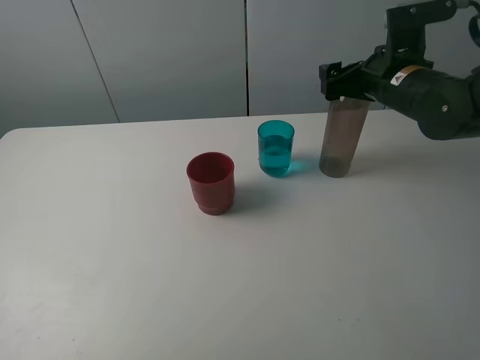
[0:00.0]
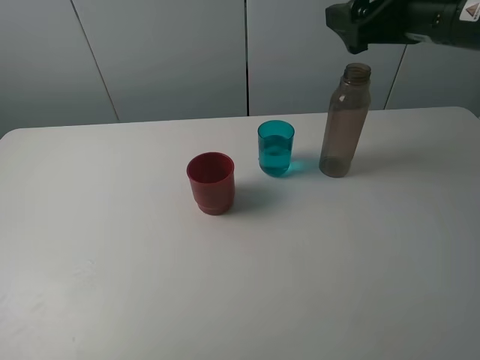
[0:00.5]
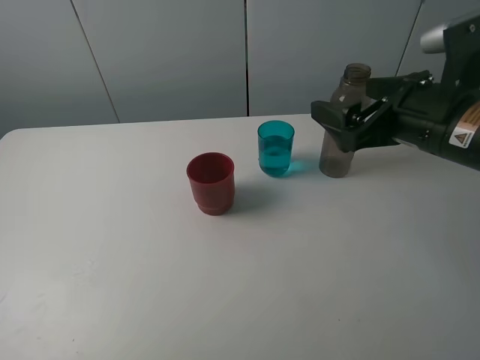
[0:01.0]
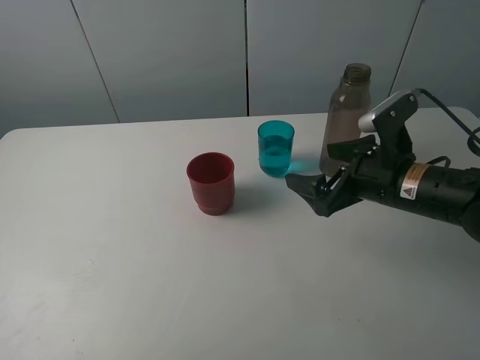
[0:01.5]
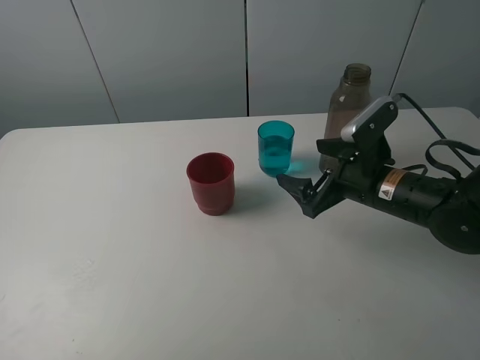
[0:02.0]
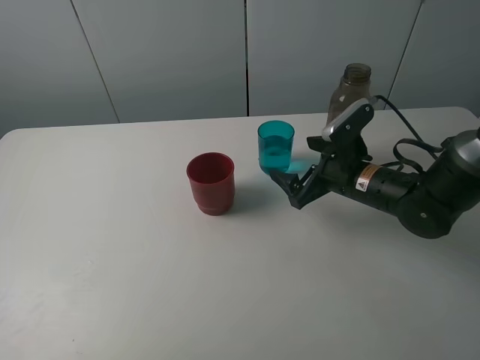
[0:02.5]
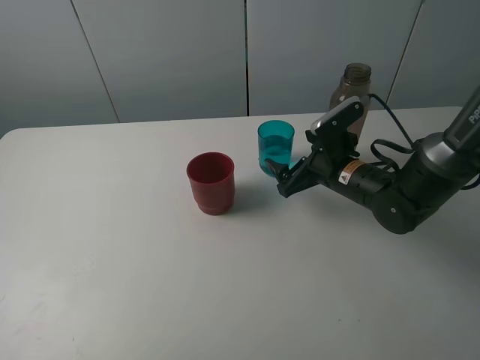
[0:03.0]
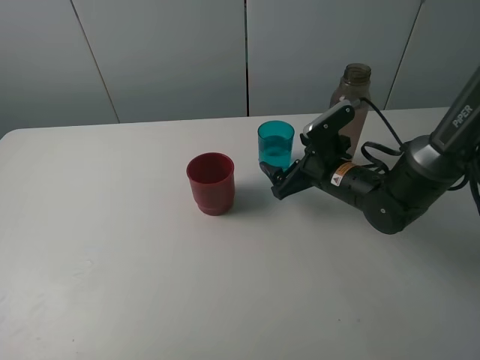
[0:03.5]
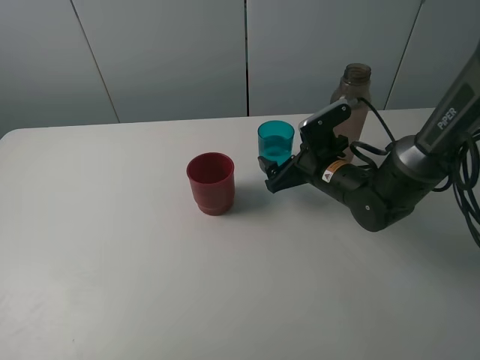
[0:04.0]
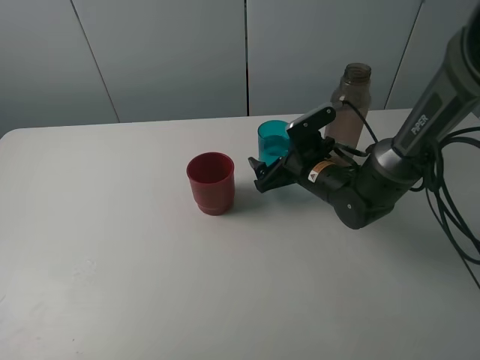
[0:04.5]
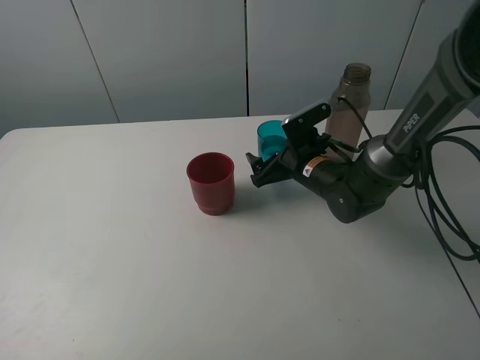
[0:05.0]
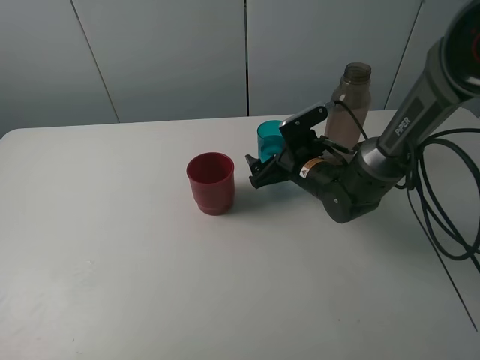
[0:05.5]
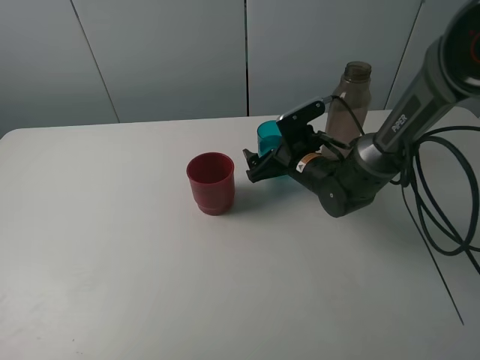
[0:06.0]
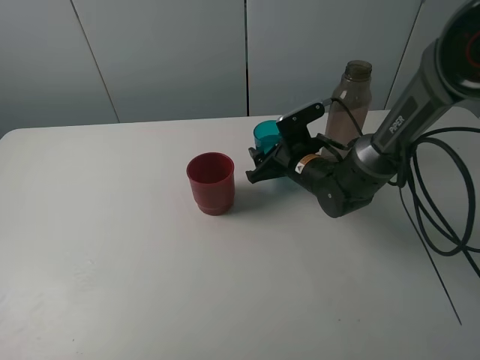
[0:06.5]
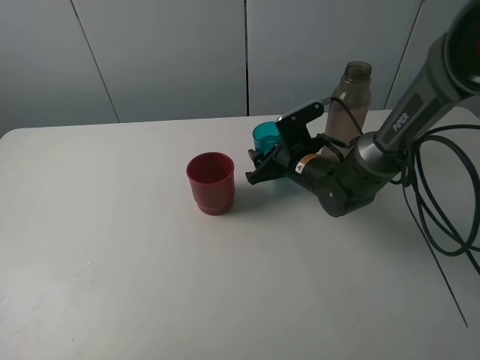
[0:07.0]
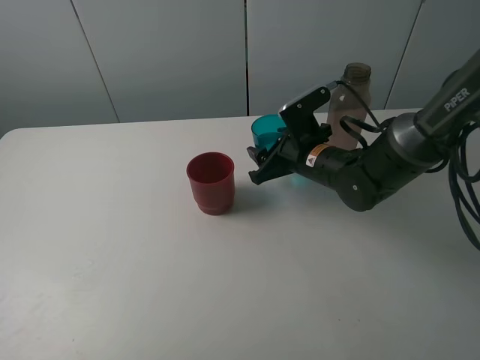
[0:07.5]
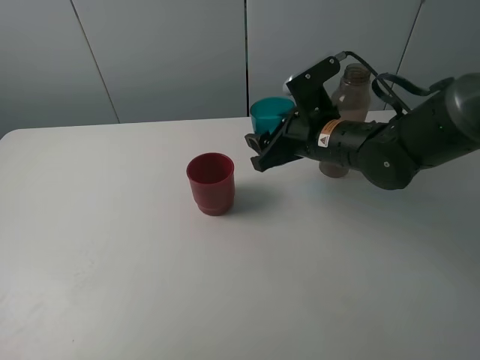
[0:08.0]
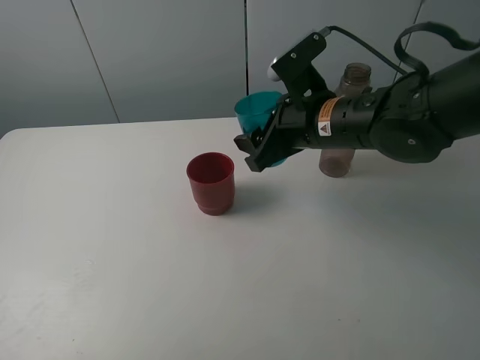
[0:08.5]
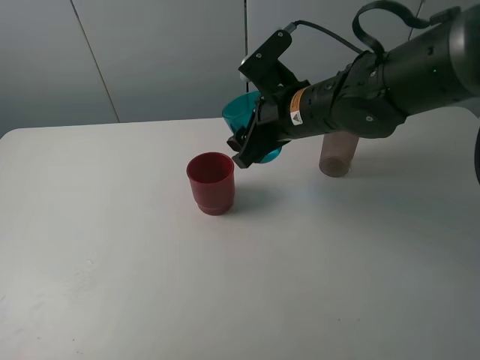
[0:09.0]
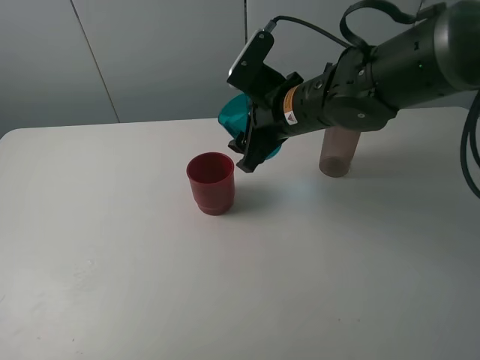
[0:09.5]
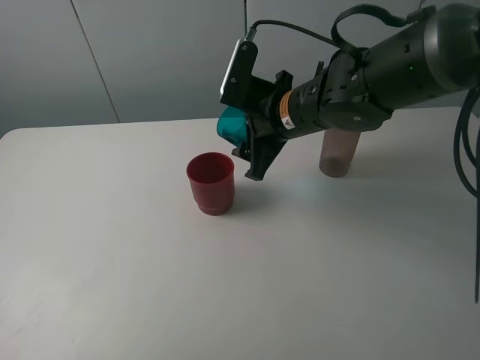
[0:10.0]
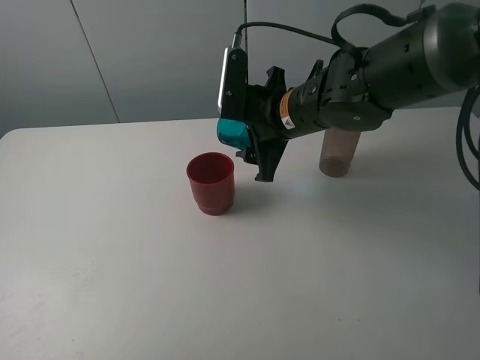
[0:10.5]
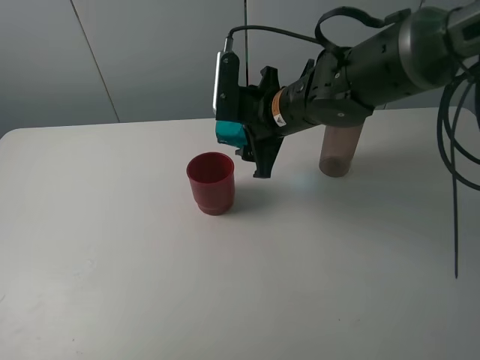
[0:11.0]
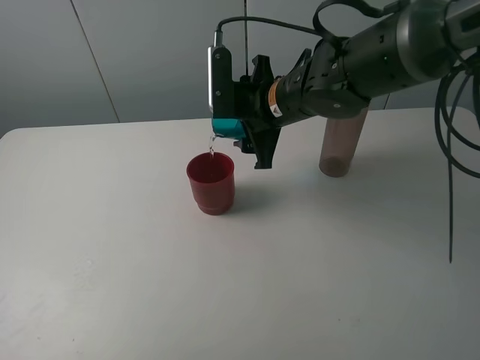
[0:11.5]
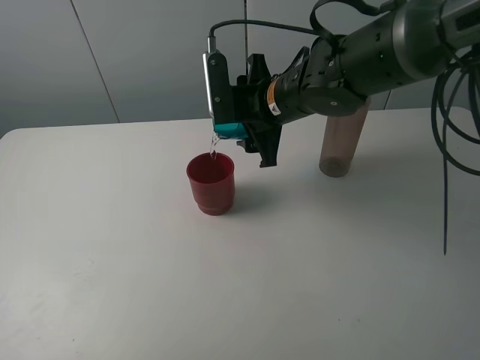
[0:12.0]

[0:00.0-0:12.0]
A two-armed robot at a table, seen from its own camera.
Task of the whole recording: pick up the bottle and pour water into the cup, then pick up the cup containing water and pour it into another cup.
Step, 0:00.0 to 0:06.5: Grasp the blue cup with the right gripper.
0:00.0 to 0:02.0: The right gripper travels downward and backward by roughly 15 cm.
0:02.0 to 0:04.0: The right gripper goes approximately 5 cm forward.
0:04.0 to 0:06.0: The grippers move only a little.
0:06.0 to 0:08.0: The right gripper is displaced upward and backward by about 10 cm, and closes.
0:08.0 to 0:10.0: The right gripper moves some 5 cm.

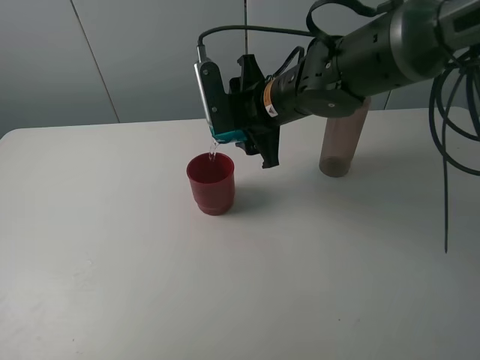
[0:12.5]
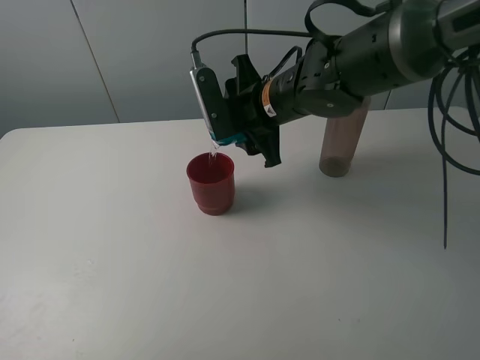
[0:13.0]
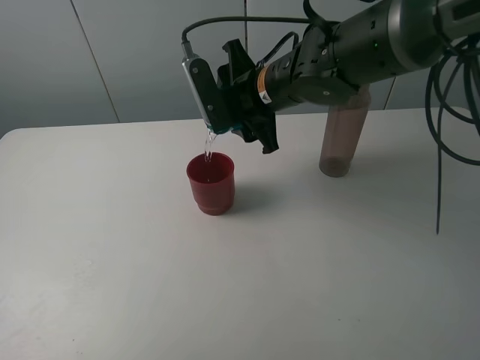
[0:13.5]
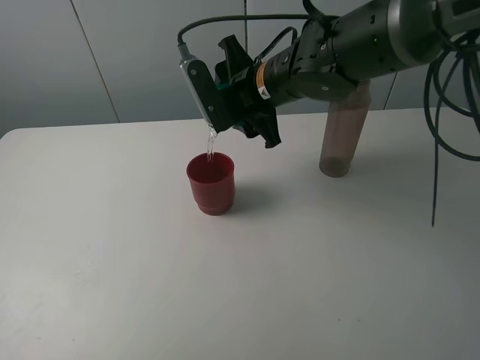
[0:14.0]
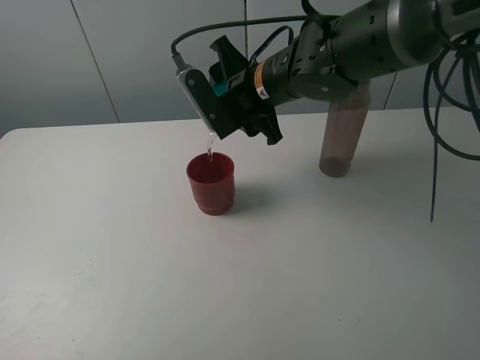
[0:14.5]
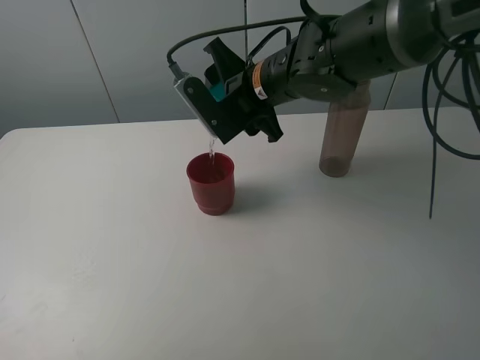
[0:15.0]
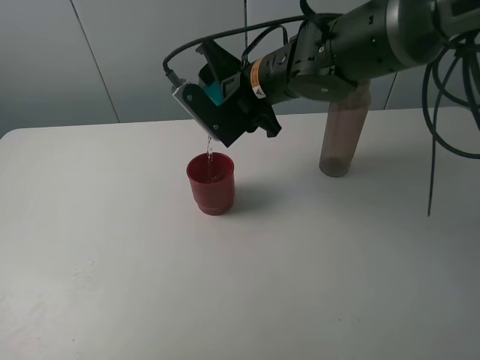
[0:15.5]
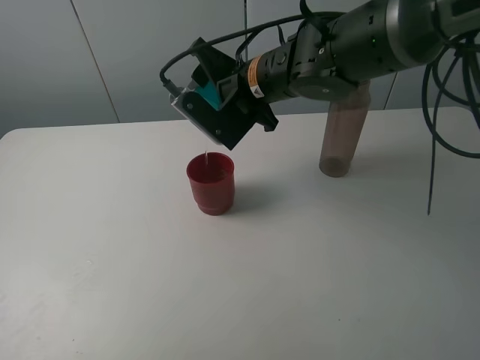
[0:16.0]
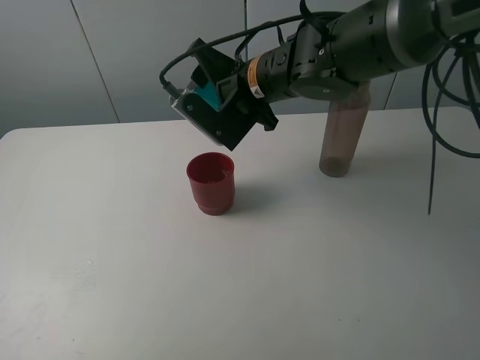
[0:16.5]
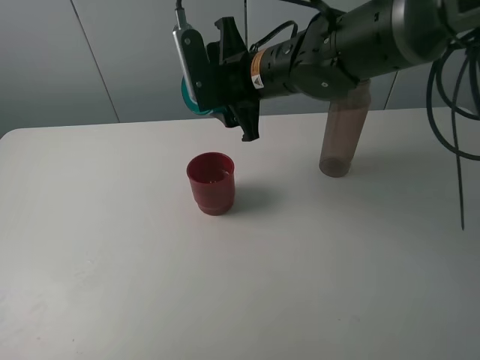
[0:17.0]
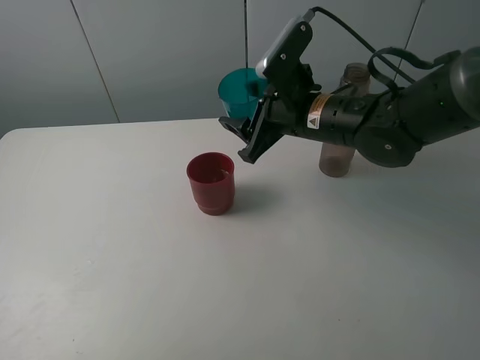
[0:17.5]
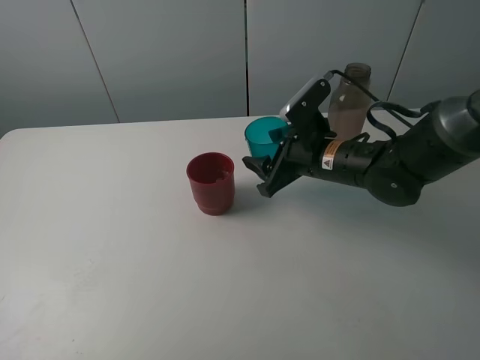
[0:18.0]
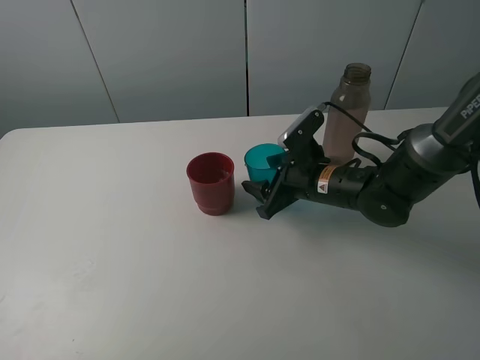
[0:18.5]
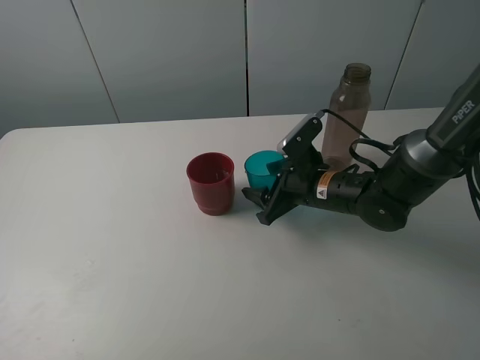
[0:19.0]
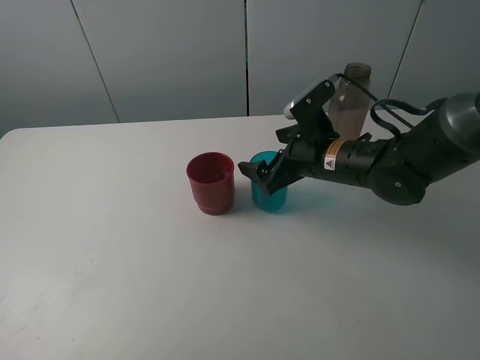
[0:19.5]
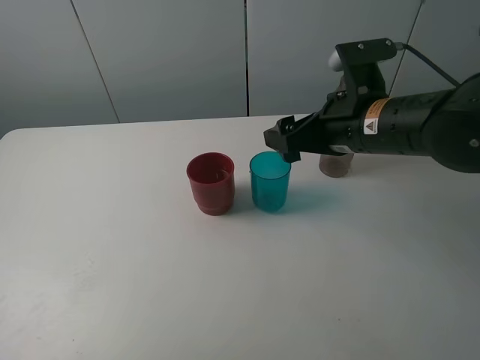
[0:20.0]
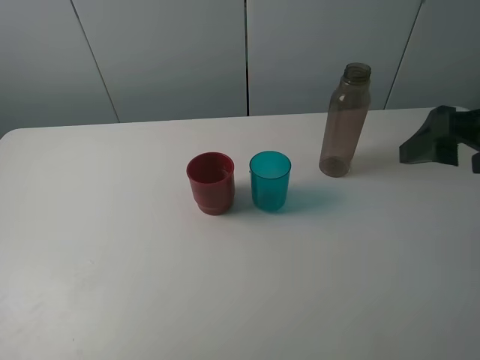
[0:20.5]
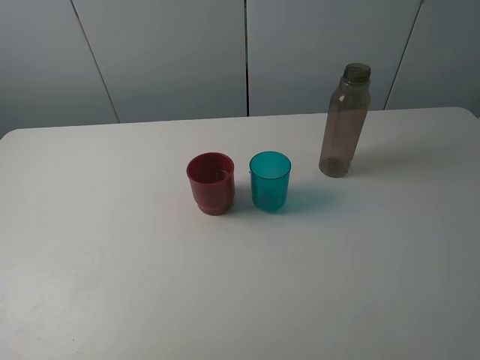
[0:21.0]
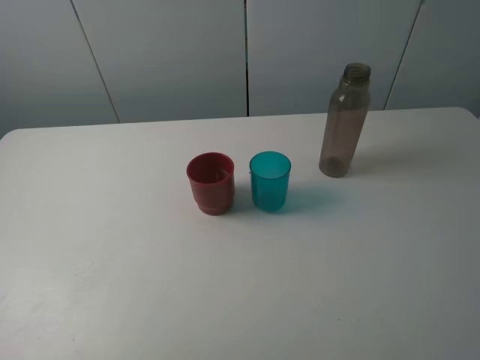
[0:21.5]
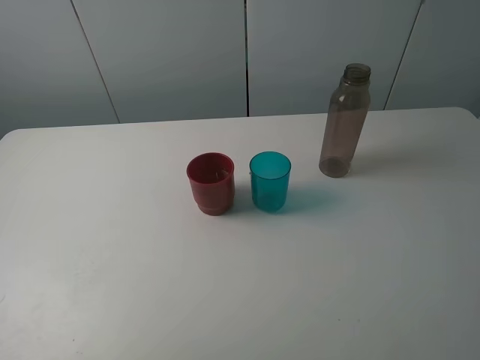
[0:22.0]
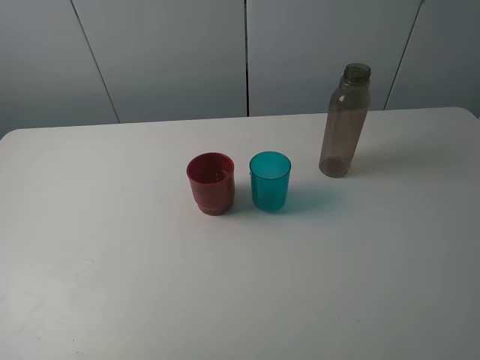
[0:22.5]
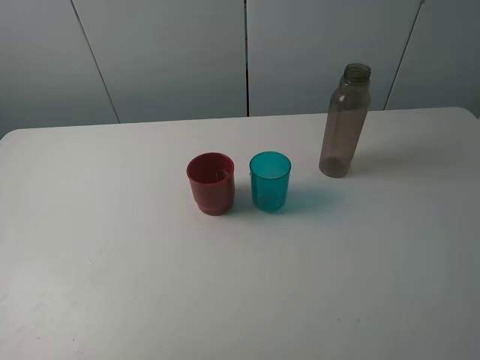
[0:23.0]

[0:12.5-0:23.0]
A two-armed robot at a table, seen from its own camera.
Task of the whole recording: pick up the bottle and pour water into the cup, then pick up the cup containing water and pour it into another cup.
Step, 0:12.5 to 0:16.0: Pour water from blue cup to red cup with the right gripper.
Step, 0:16.5 to 0:19.0: Place the blue cup with the right gripper.
0:16.5 to 0:19.0: The right gripper travels downward and to the right by approximately 15 cm.
0:19.0 to 0:21.0: The right gripper heads upward, backward and to the right, covering about 40 cm, and opens up.
